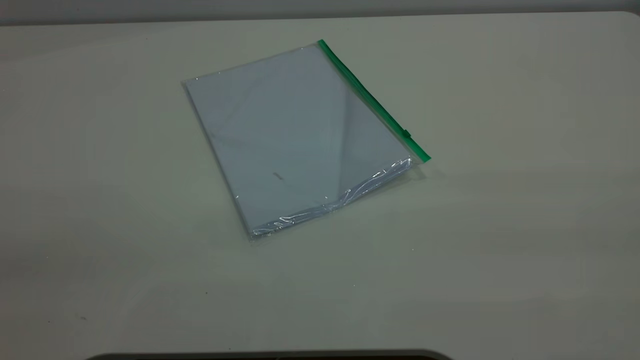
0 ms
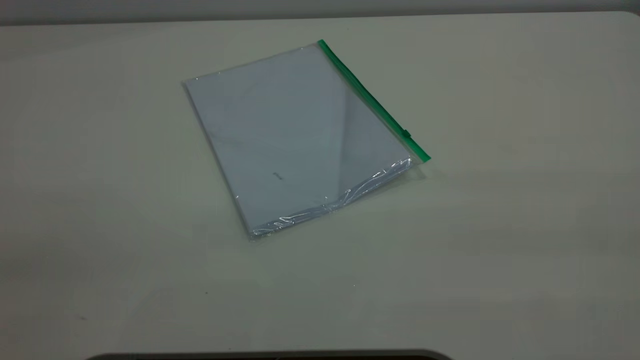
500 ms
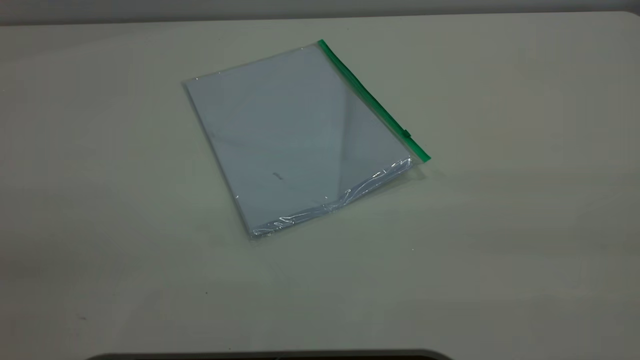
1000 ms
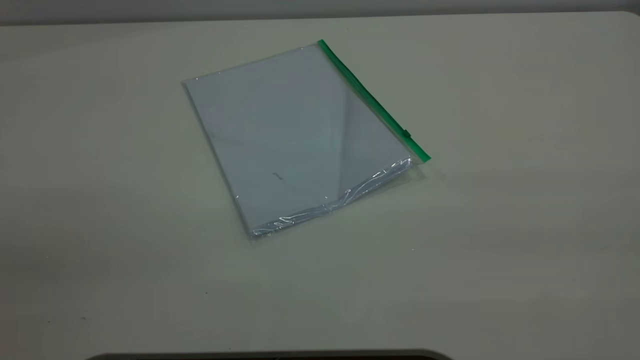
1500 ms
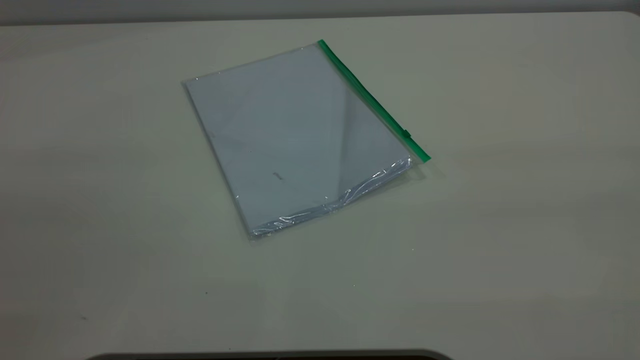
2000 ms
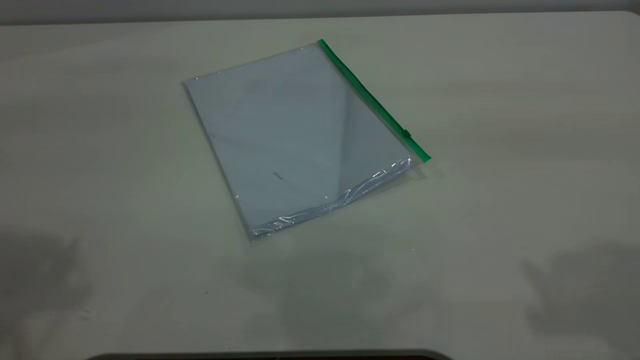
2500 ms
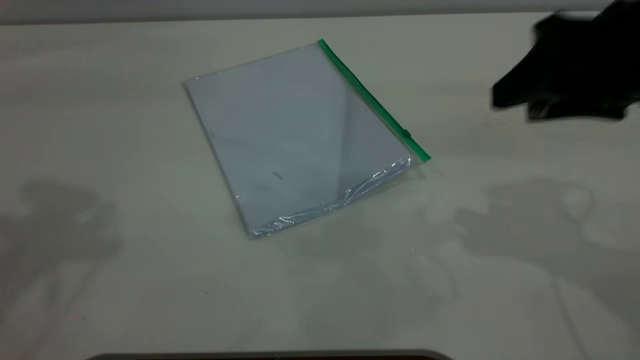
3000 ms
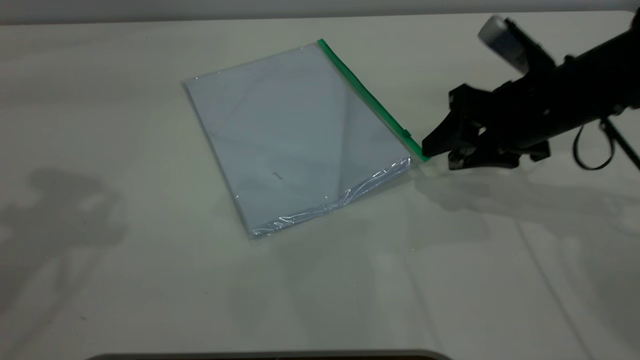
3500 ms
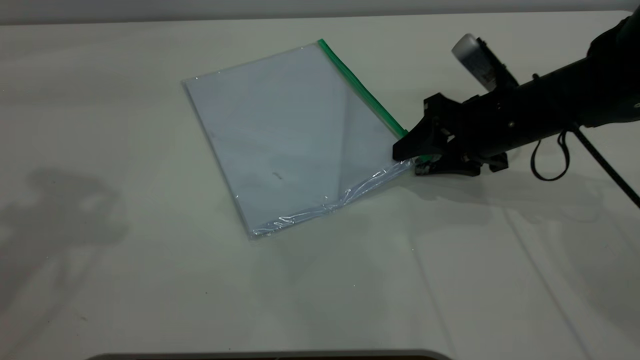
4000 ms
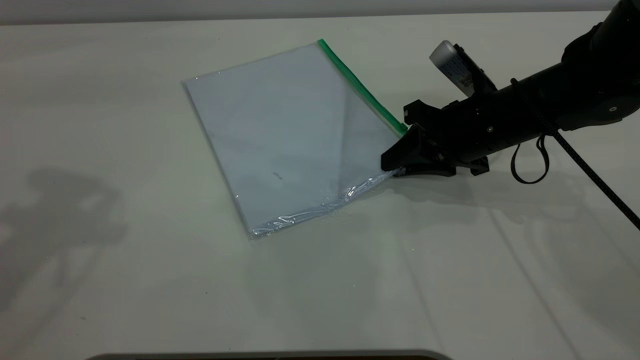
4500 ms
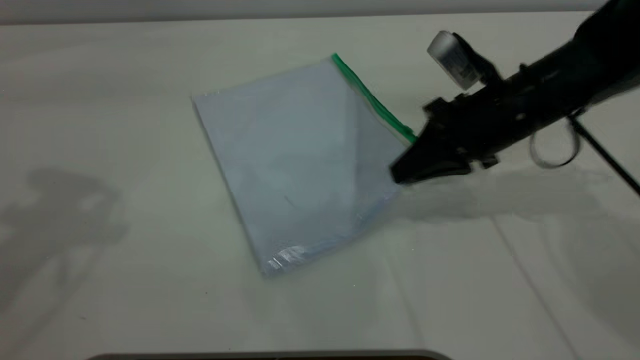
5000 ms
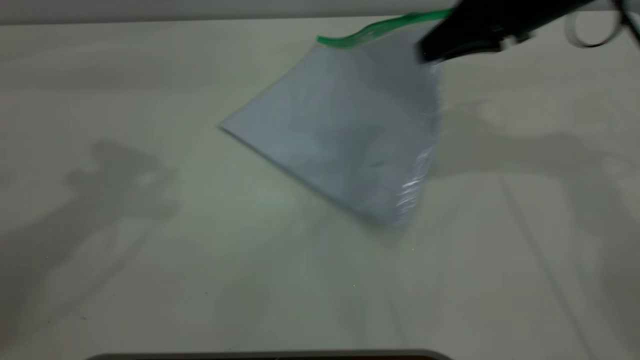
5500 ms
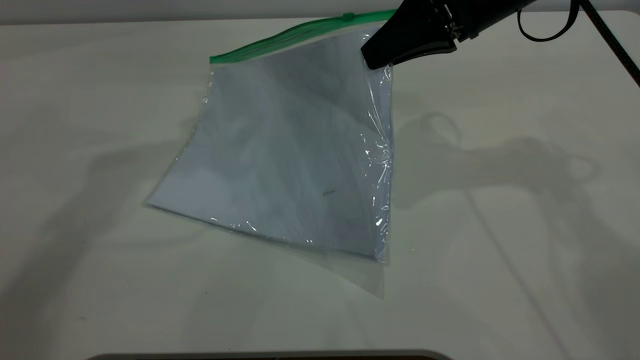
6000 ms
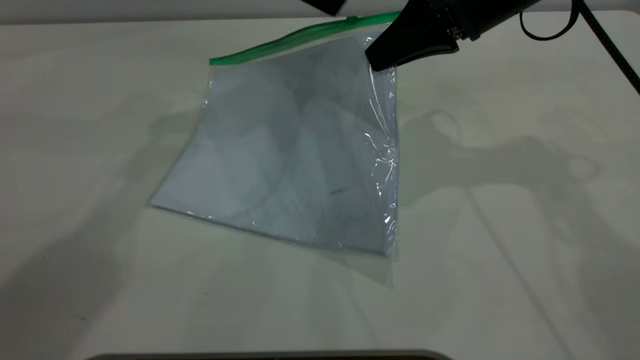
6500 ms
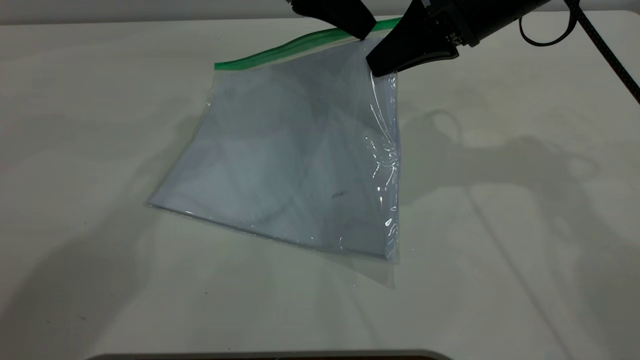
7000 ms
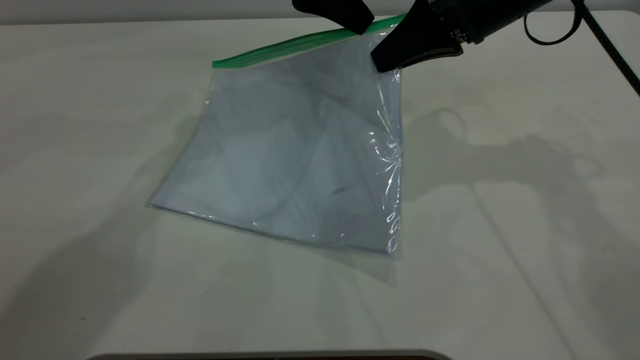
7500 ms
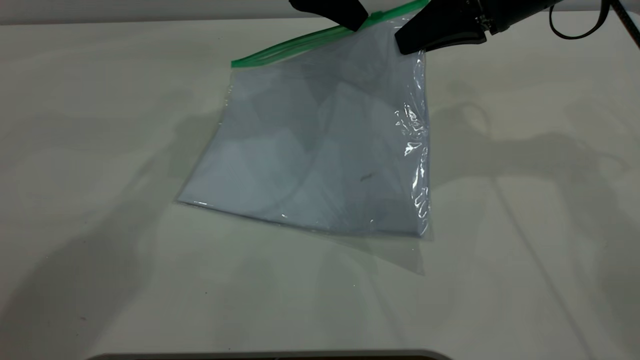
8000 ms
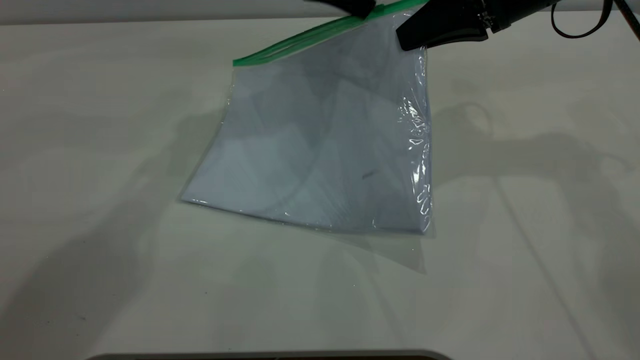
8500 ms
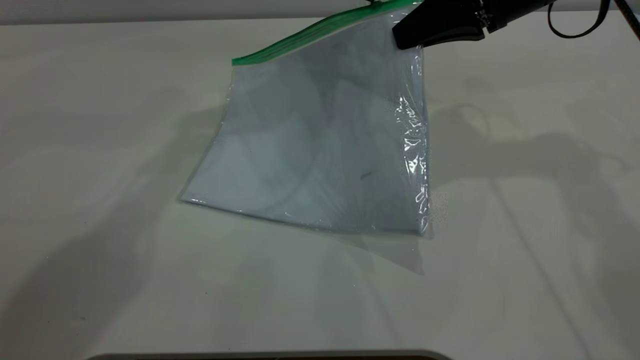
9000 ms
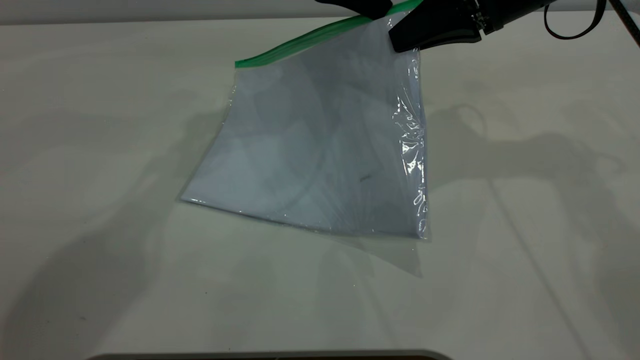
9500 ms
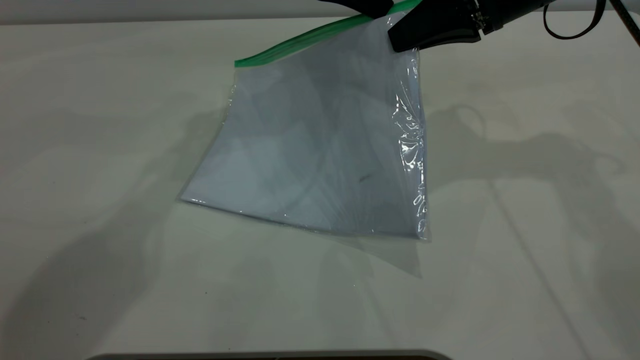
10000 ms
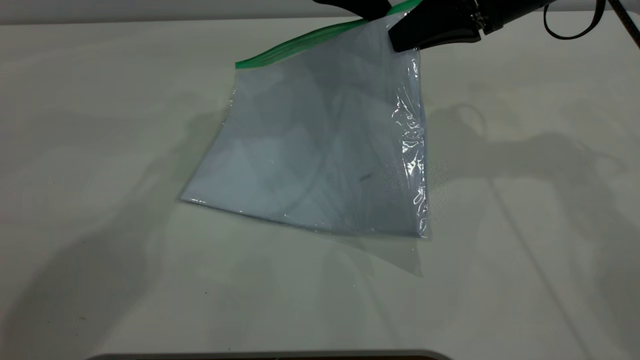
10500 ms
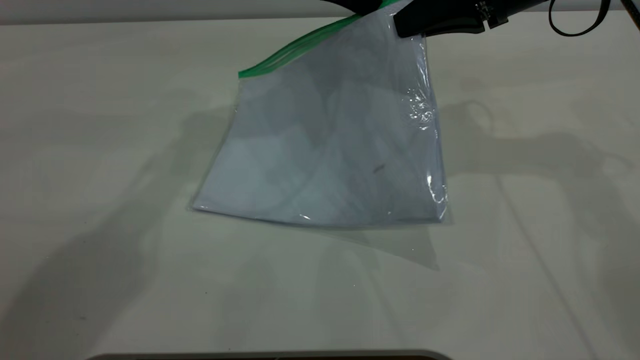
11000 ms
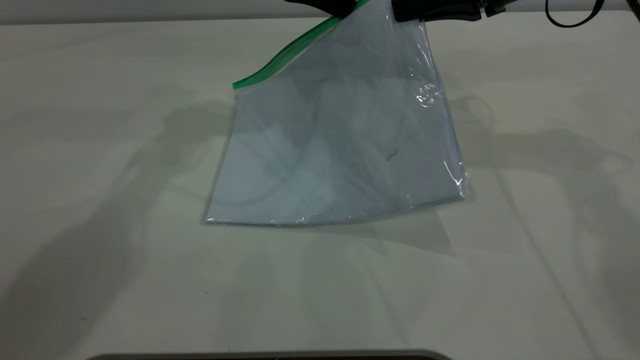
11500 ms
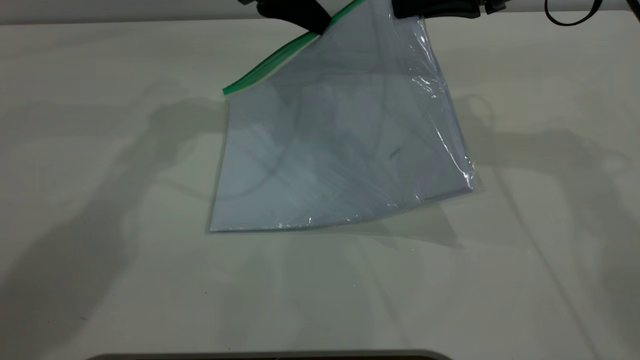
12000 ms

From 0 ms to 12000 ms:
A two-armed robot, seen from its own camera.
Step, from 0 ms to 5000 ms: Pick up the transparent plastic bag with the right gripper.
From 2000 ms to 4000 ms: The right gripper goes some 50 cm forward and downward, while the left gripper shifts about 25 cm forward.
From 4000 ms to 6000 ms: The right gripper moves upward, roughly 15 cm, and closes up; the left gripper moves to the right, forward and downward, approximately 20 cm.
From 6000 ms to 8000 ms: The left gripper heads to the right and downward, covering roughly 10 cm, and closes up.
From 8000 ms to 10000 ms: The left gripper opens, then closes again.
From 10000 ms to 12000 ms: The left gripper is displaced to the left by approximately 5 cm.

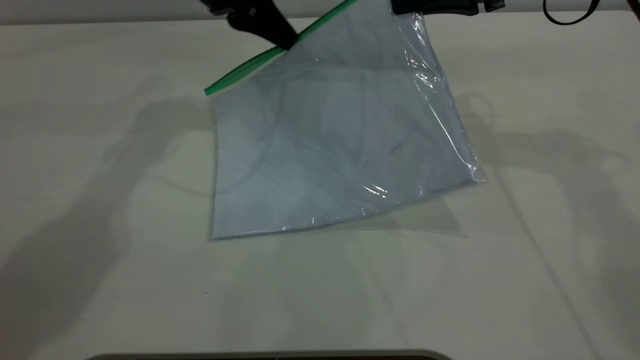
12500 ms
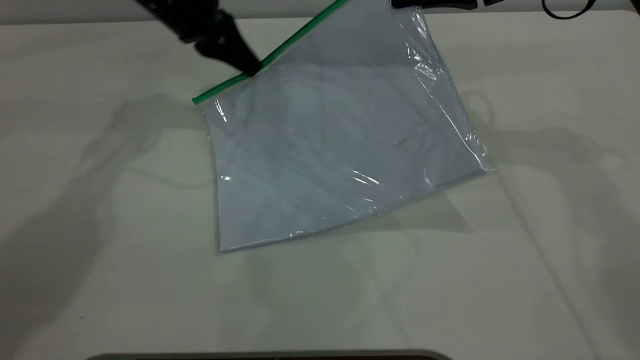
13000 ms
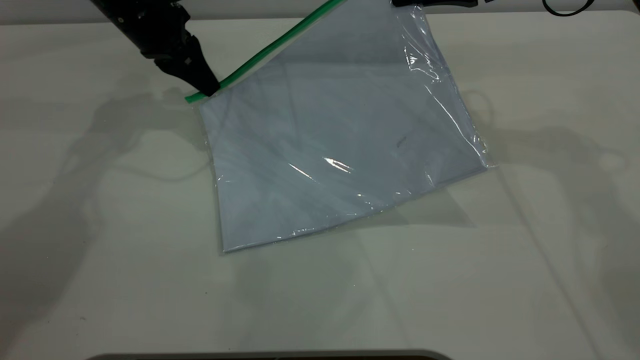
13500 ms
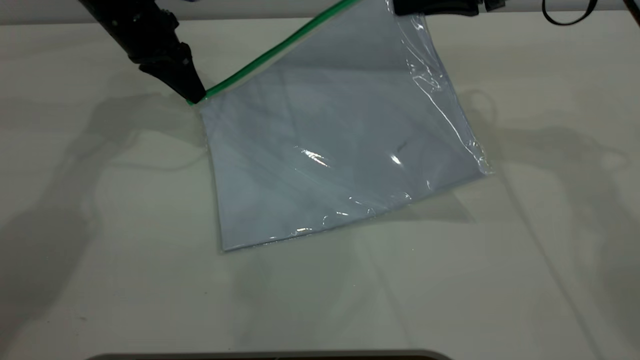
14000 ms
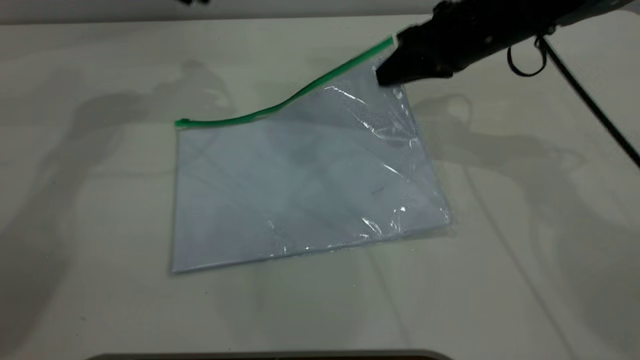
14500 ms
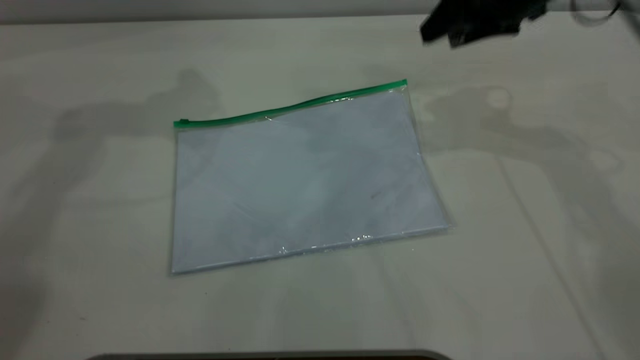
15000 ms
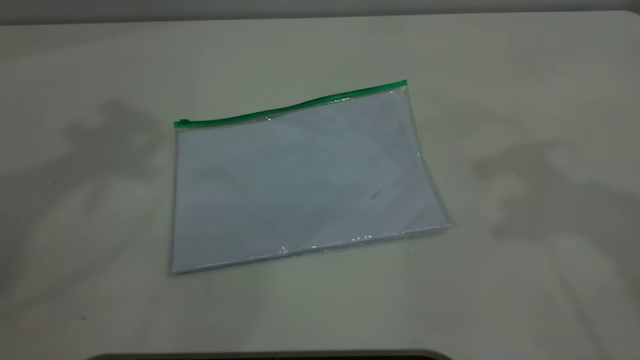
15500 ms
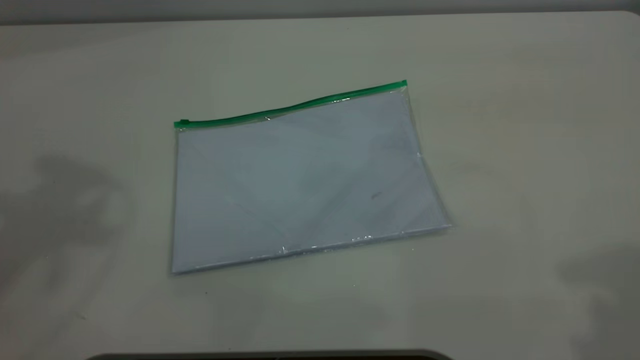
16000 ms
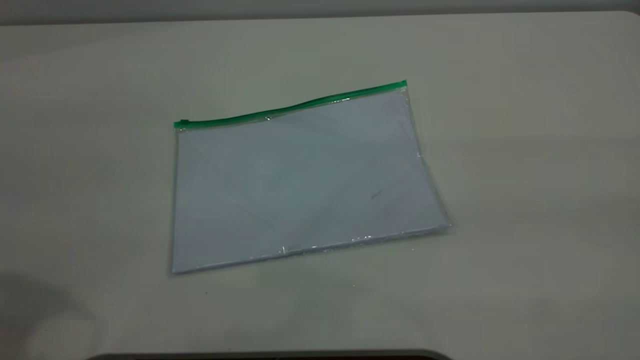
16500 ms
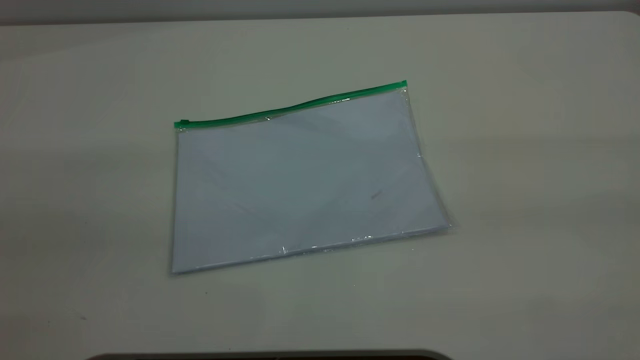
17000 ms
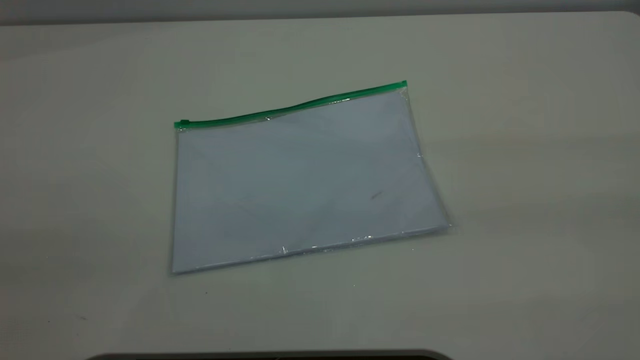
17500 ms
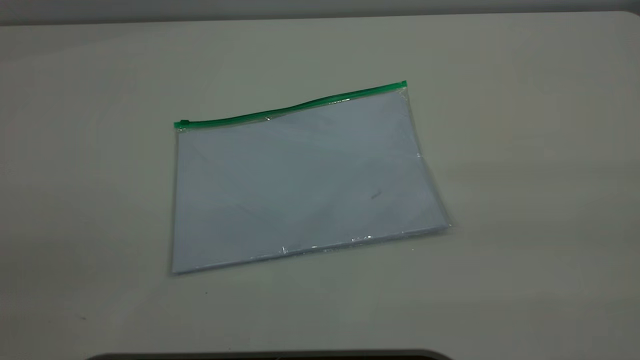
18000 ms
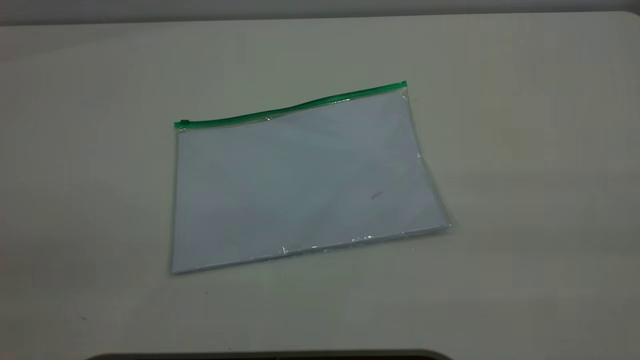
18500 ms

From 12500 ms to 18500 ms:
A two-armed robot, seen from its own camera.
From 12500 ms to 14500 ms: The right gripper moves downward, some 10 cm; the left gripper travels upward and to the left by approximately 10 cm, and opens.
From 14500 ms to 16500 ms: The right gripper goes approximately 40 cm backward and upward, and opens; the left gripper shifts roughly 35 cm backward.

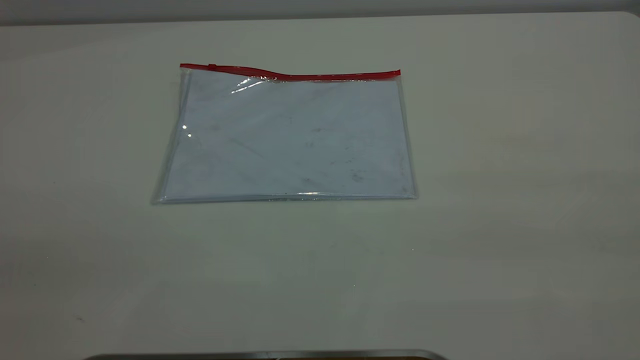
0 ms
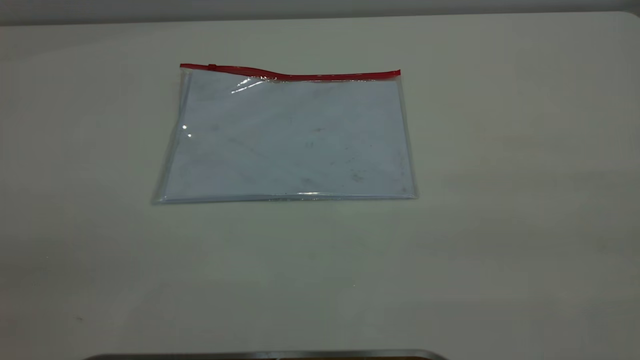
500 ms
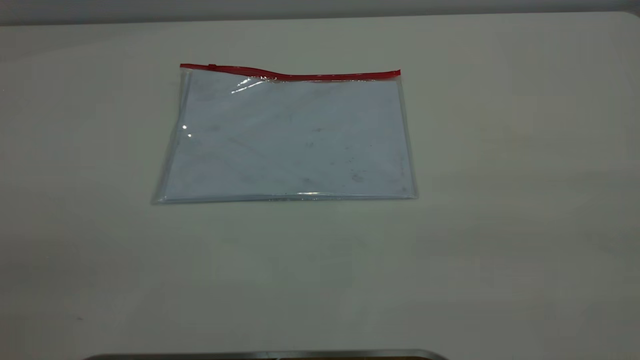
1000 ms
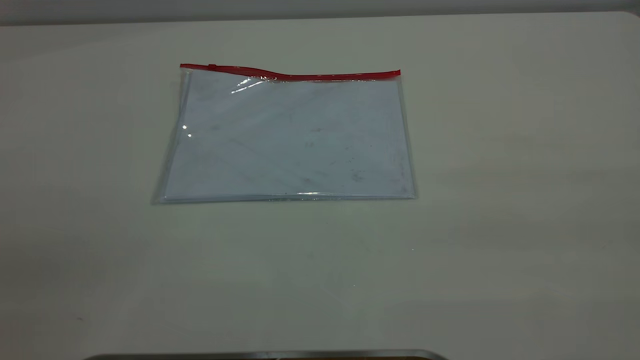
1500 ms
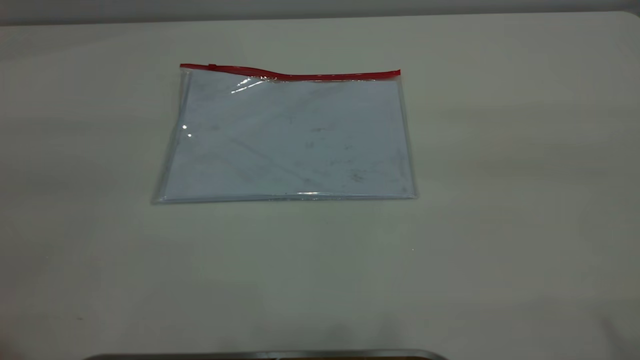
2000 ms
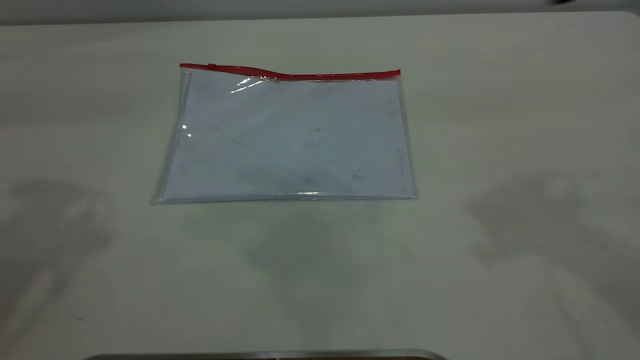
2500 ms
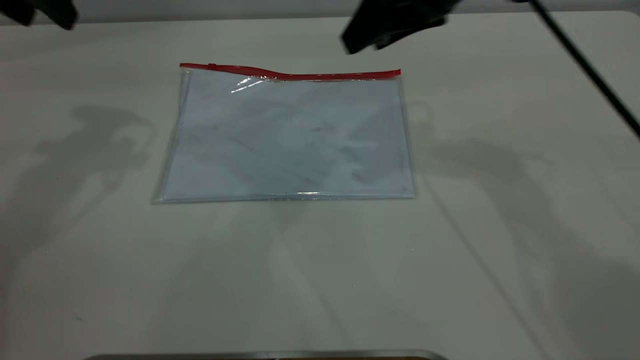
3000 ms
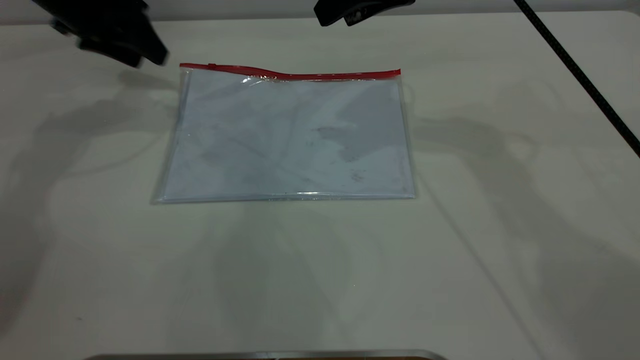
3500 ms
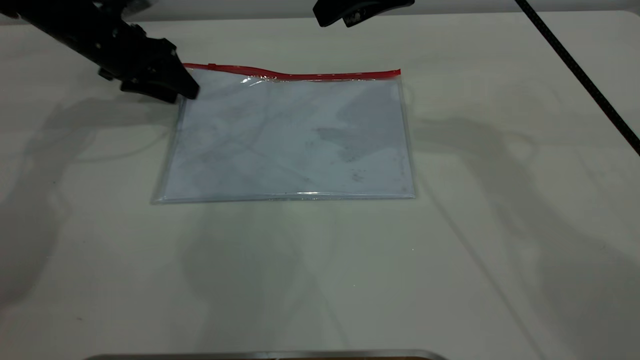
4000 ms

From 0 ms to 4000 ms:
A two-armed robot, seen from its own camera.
From 2000 ms to 4000 ms: The right gripper heads forward, to the left and downward, covering some 40 cm. Meanwhile the left gripper is displaced forward and downward by roughly 50 cm.
